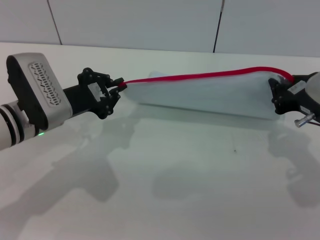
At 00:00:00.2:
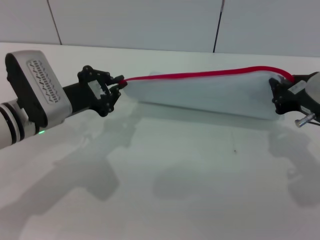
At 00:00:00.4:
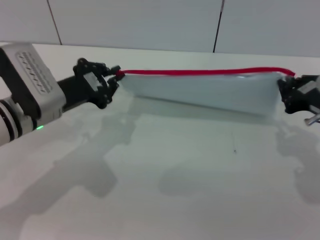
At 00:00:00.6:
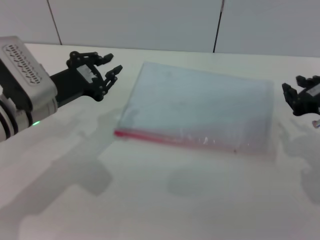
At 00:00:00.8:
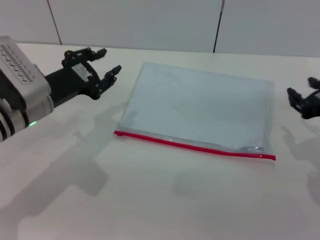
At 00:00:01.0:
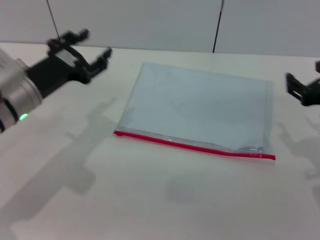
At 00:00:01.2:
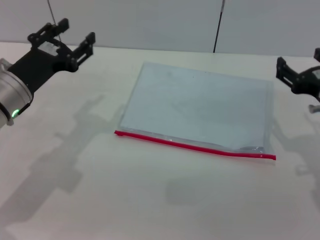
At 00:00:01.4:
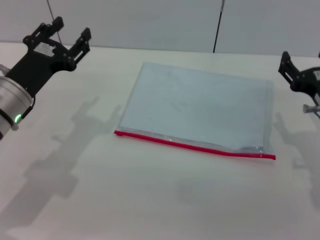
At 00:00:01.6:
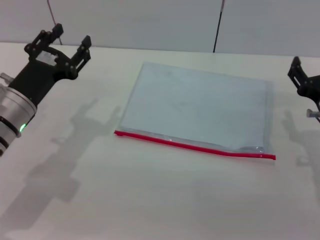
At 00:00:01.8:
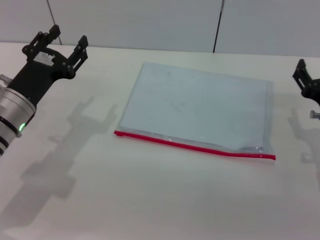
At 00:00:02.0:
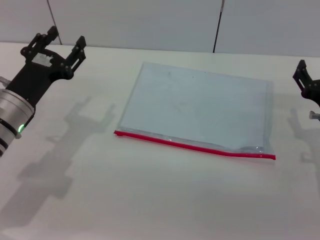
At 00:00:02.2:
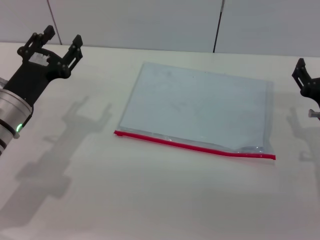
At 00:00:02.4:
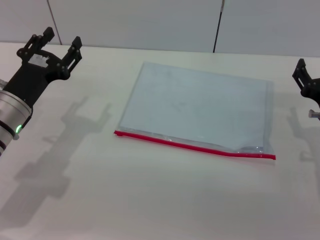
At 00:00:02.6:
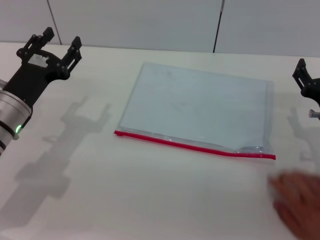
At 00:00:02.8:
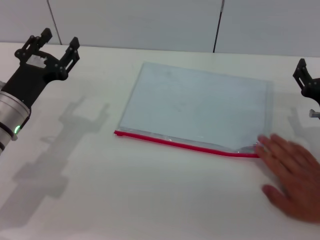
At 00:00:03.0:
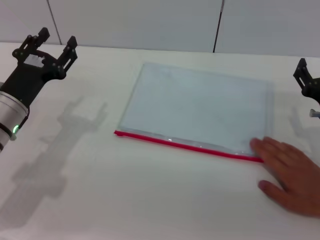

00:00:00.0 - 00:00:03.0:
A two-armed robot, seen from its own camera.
Step, 00:00:00.4 - 00:00:01.4: Place the transparent plastic bag.
00:00:00.0 - 00:00:01.6: The right gripper shifts some 5 cm downward, and opens up. The left gripper opens its fingers.
00:00:01.6 - 00:00:03.0: There are only small adjustments of the grippers.
